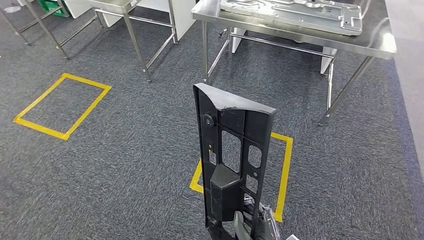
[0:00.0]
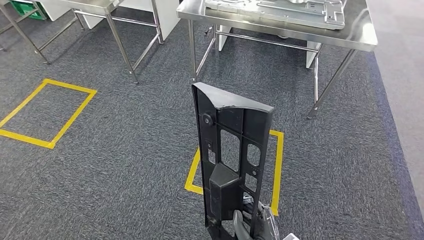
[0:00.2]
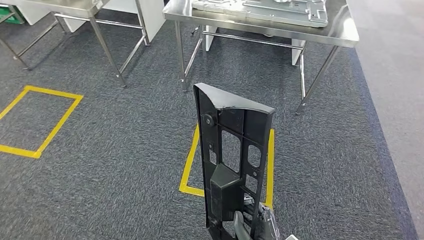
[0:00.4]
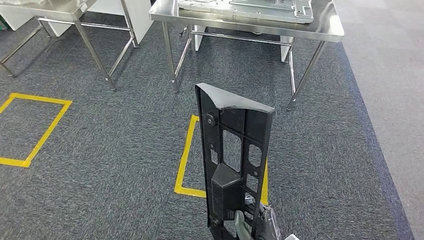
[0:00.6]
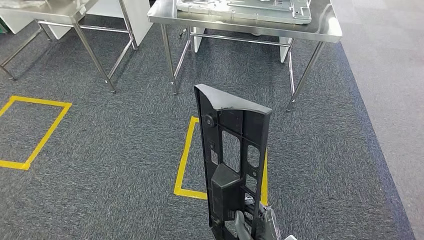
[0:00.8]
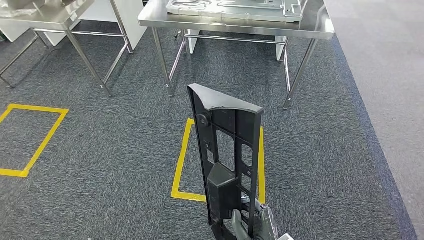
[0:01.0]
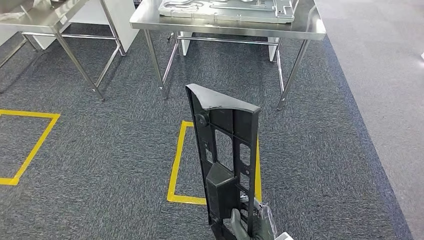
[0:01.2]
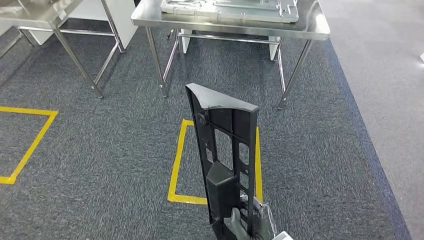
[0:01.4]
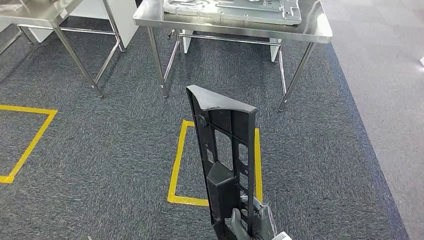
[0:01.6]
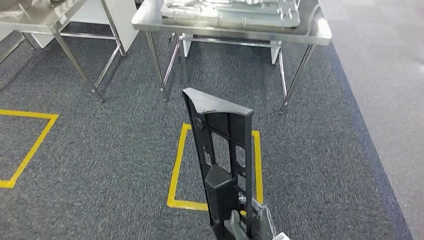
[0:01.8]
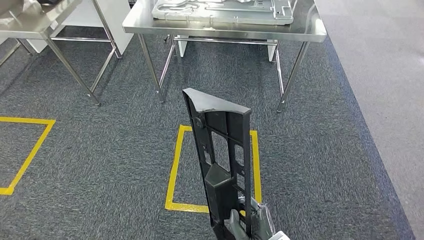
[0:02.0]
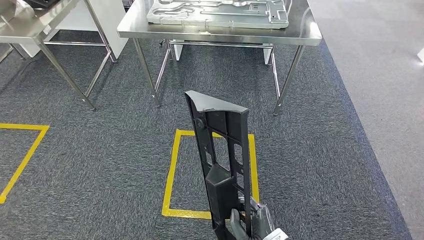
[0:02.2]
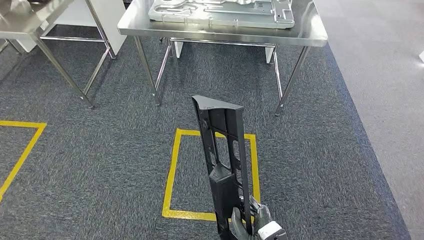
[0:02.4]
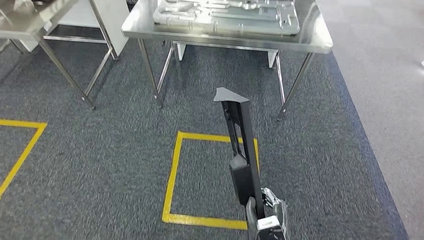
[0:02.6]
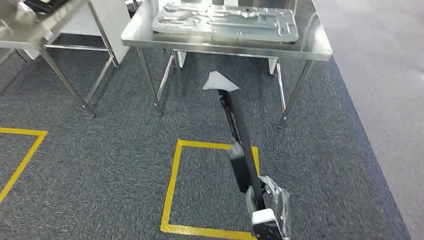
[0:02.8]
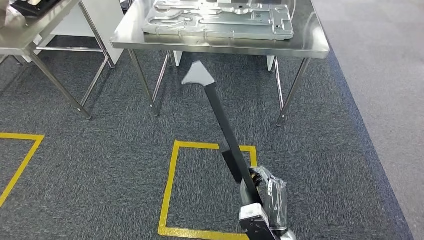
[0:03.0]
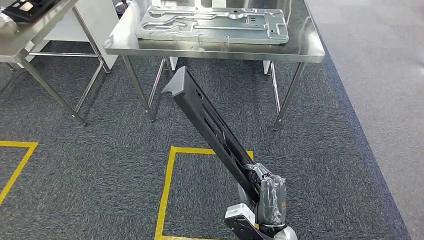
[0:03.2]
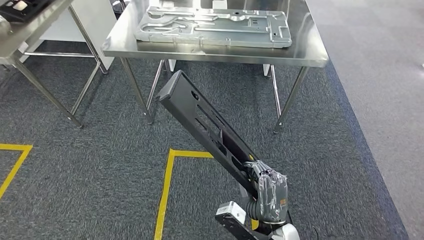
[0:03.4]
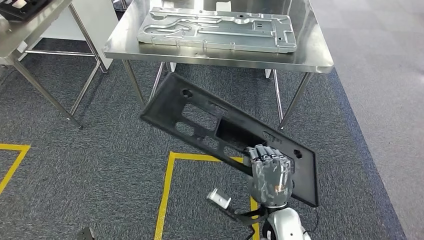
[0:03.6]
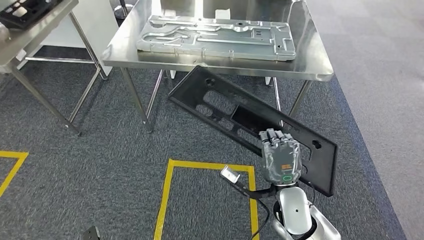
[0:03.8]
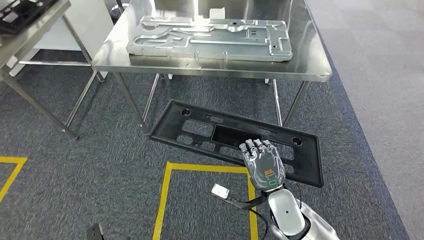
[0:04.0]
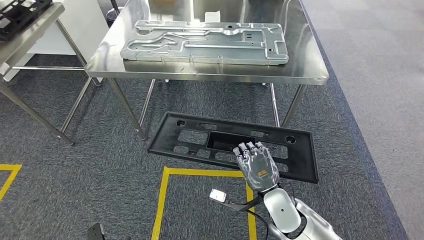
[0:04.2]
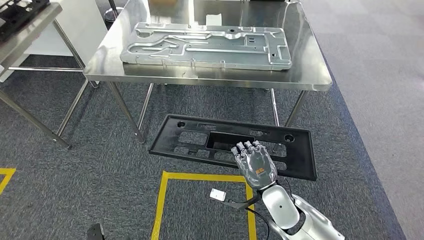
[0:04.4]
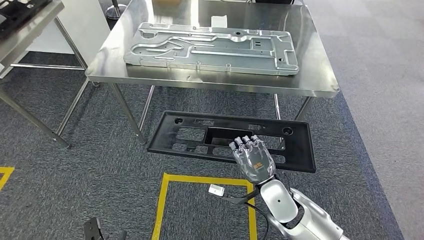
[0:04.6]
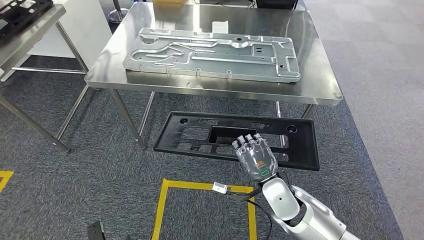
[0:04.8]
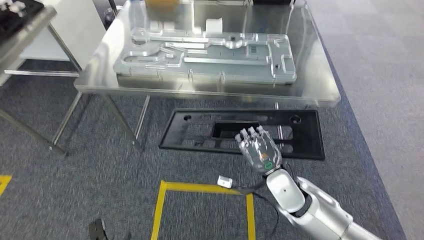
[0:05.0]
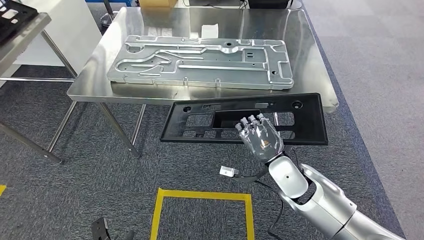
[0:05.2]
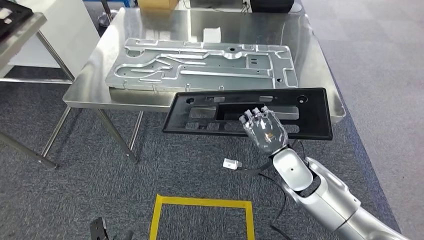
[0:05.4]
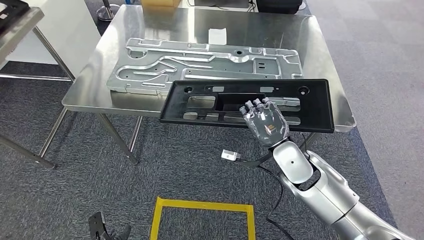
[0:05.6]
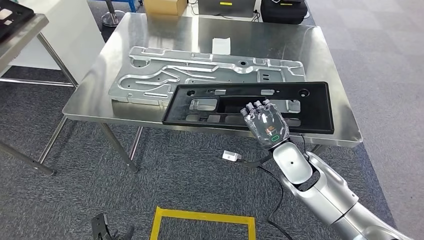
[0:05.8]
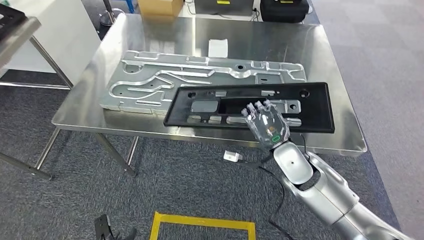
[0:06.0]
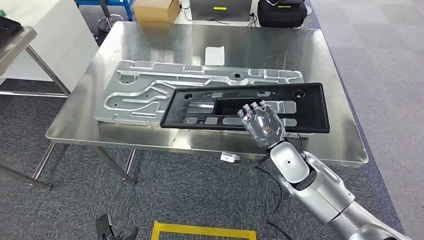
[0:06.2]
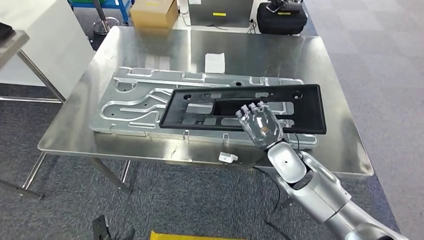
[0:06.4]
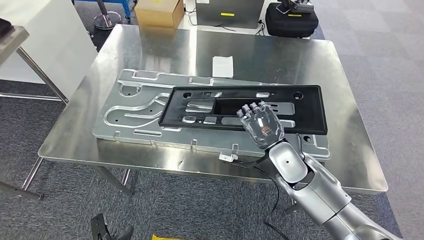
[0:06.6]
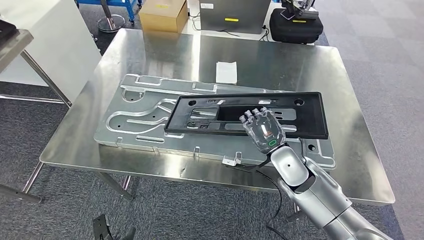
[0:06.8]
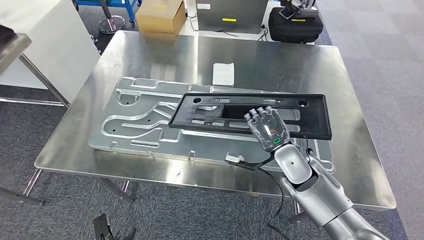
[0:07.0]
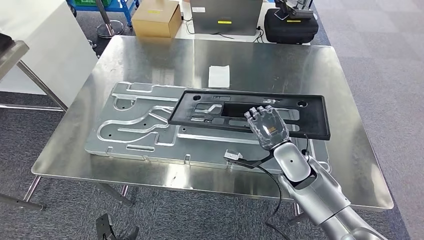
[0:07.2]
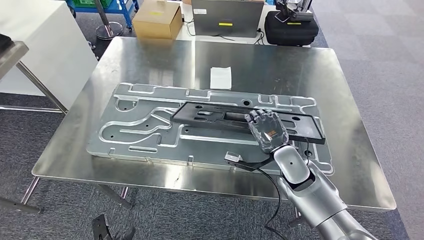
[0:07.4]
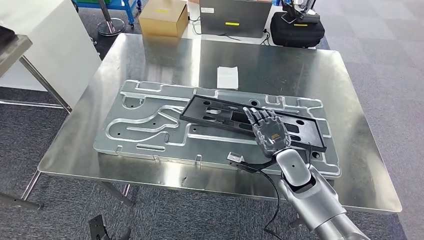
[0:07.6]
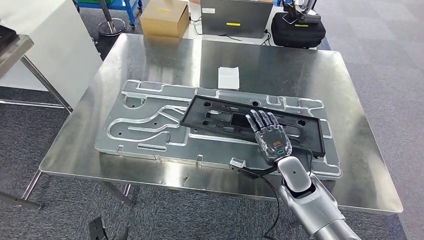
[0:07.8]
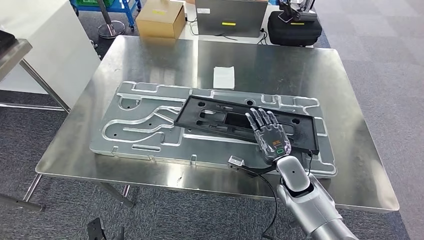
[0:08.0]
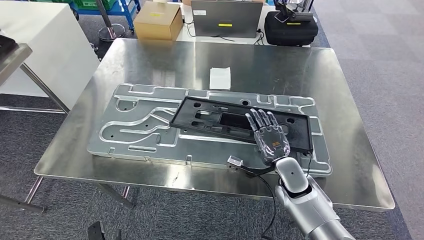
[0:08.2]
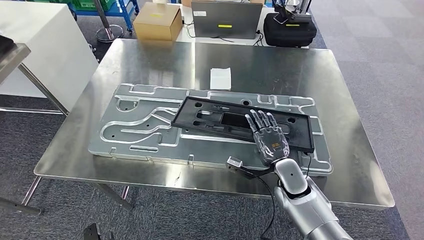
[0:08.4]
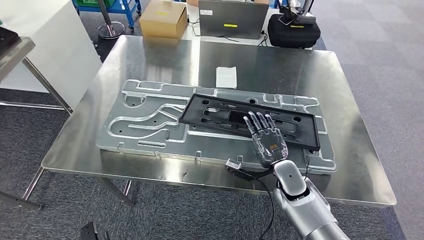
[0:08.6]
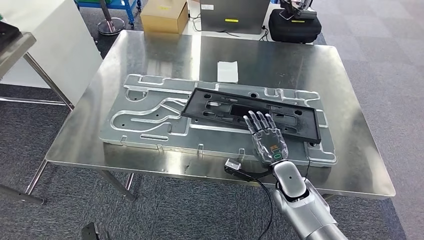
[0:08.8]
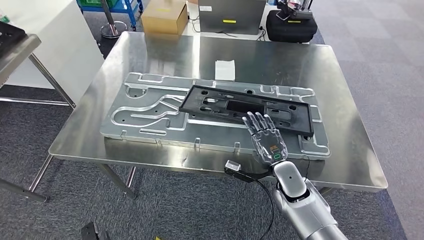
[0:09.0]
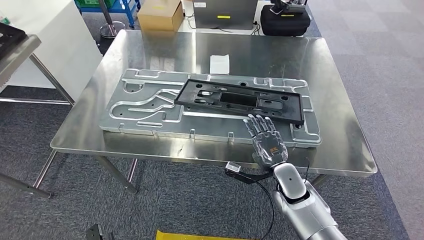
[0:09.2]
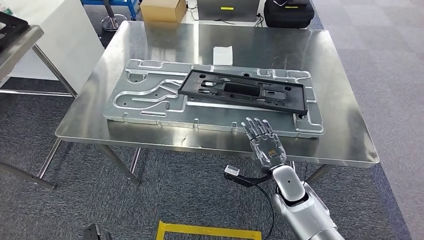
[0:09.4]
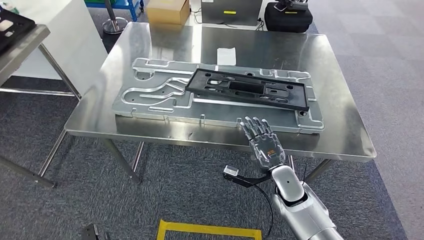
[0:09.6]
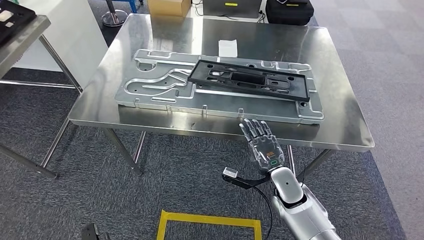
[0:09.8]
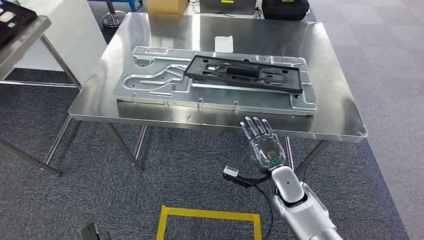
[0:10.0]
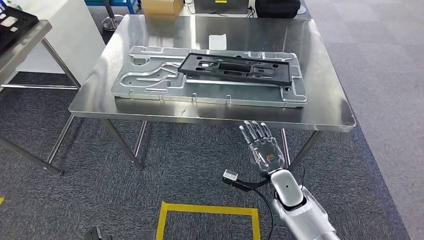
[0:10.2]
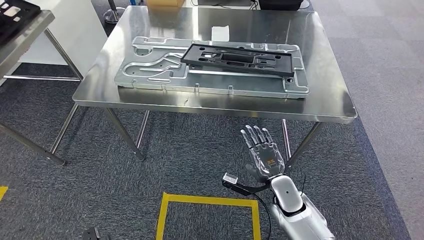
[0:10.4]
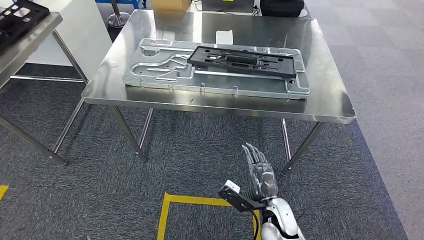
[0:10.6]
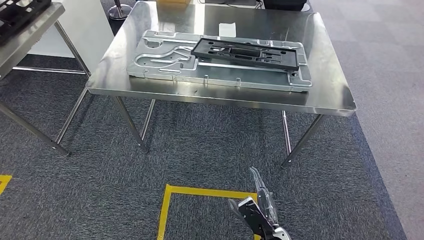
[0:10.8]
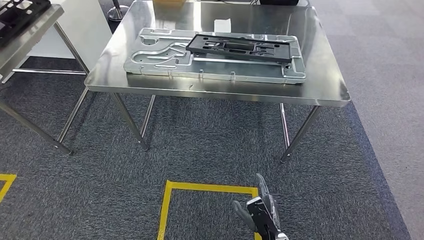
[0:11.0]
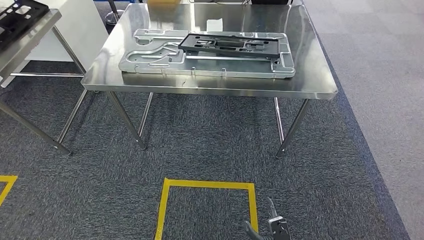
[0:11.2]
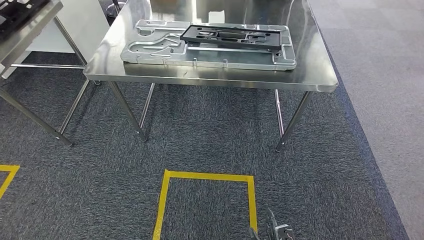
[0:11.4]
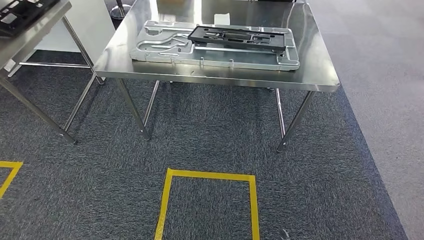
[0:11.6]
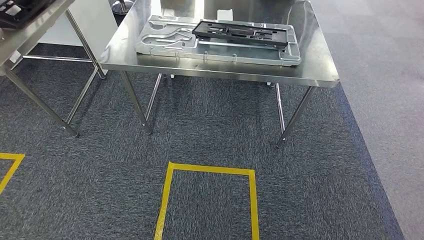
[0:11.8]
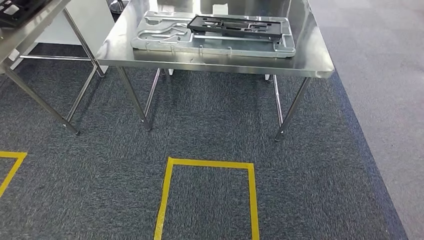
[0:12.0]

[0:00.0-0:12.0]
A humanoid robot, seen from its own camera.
Step, 0:06.8 to 0:10.4: Insert the large material into the corresponding slot on the workbench.

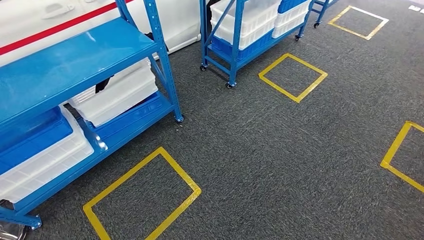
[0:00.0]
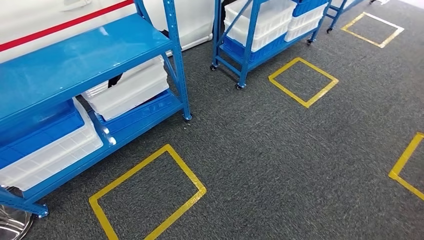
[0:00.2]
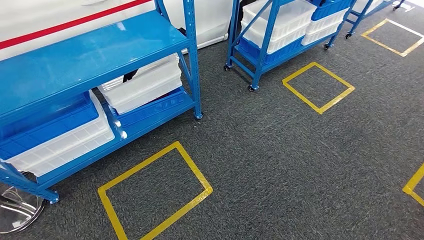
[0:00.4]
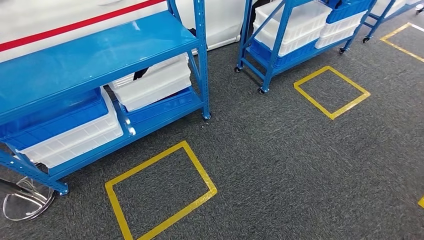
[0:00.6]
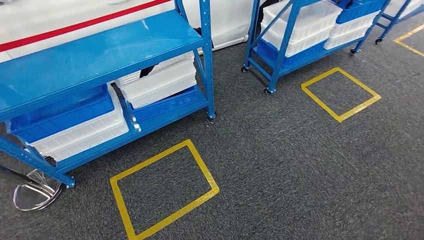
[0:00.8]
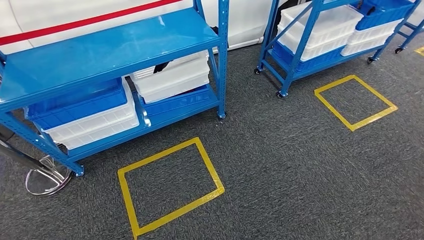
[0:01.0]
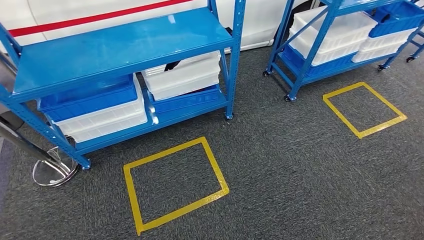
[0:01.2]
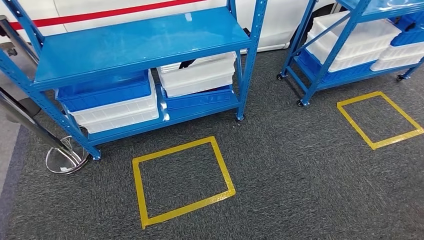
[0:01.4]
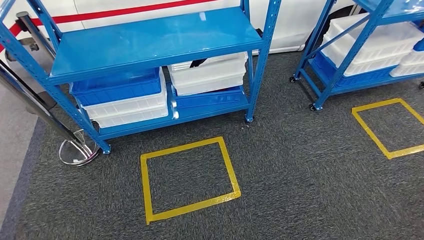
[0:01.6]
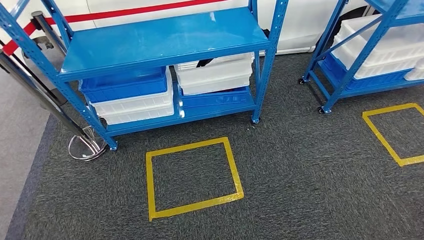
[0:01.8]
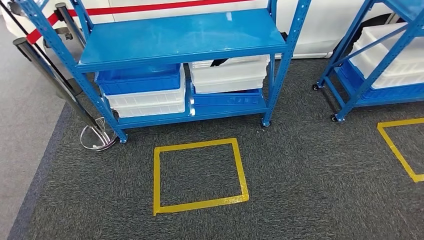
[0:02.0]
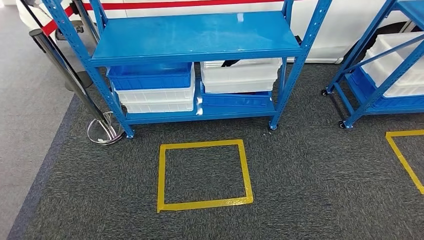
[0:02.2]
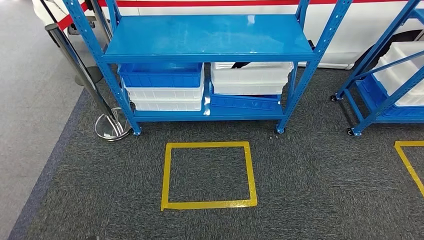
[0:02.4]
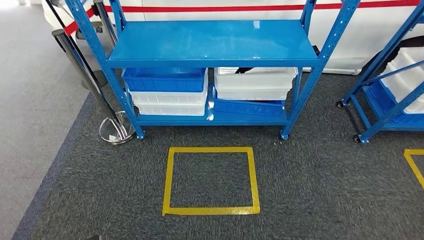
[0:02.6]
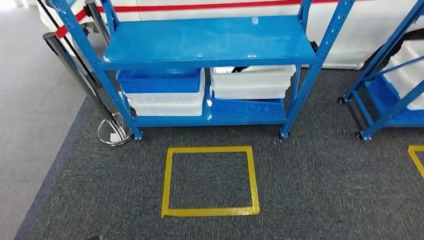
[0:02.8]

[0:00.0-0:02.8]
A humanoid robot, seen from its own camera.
Step, 0:00.0 to 0:02.6: Return to the initial position at the shelf.
